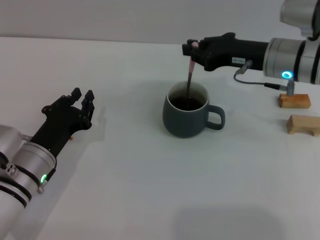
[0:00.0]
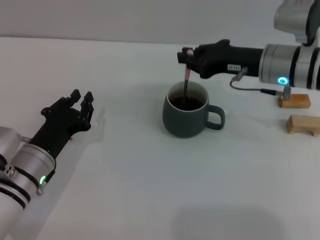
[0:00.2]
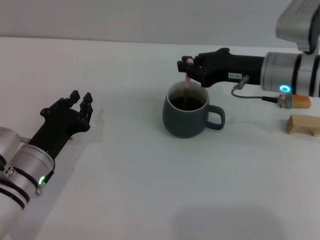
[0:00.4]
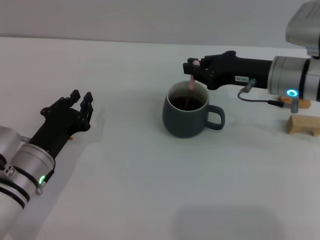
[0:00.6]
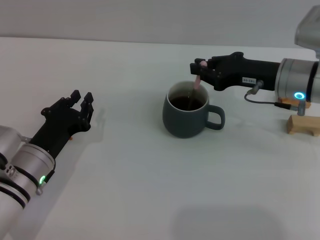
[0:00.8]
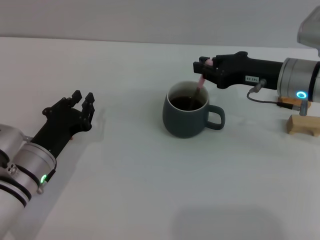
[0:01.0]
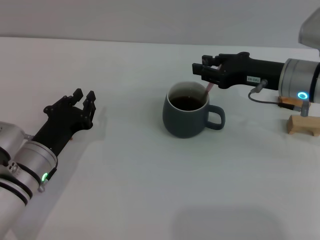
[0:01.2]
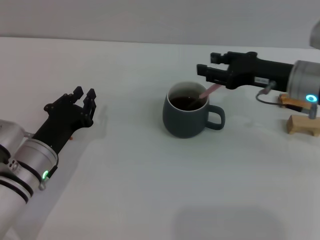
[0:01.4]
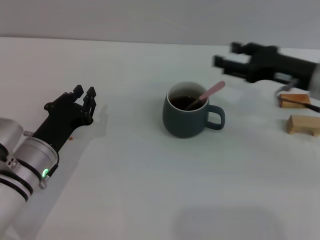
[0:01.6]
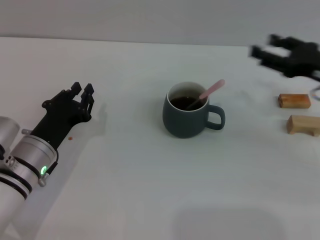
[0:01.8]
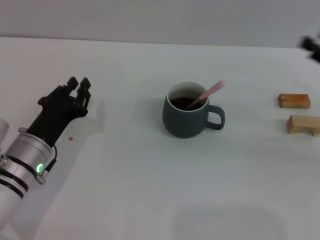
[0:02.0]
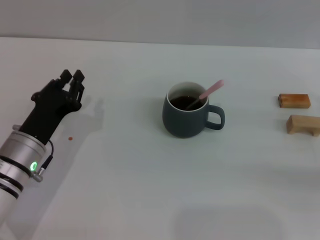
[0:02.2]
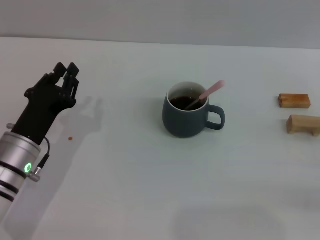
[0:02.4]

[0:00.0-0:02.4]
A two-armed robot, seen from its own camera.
Task of the whole recording: Move the grey cup to the center, lift the pink spoon, stir it three times in the cup, and put the spoon into the cup.
0:00.0 to 0:01.2: The grippers stay close to where they were, moving slightly.
0:01.2 to 0:02.4: The right gripper travels to the right and backward by approximately 25 cm, and opens up.
